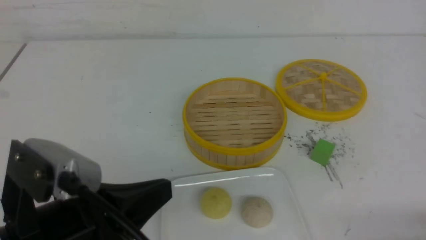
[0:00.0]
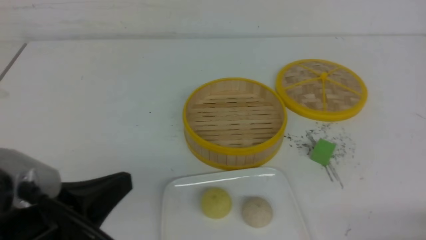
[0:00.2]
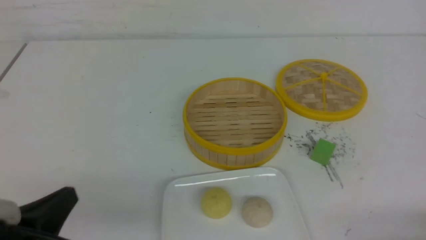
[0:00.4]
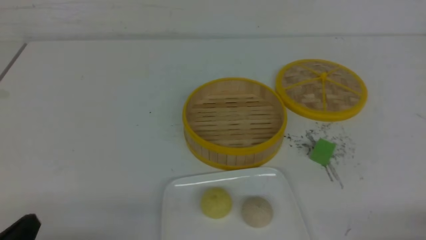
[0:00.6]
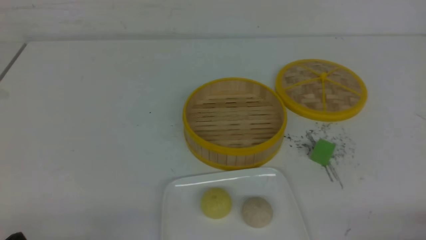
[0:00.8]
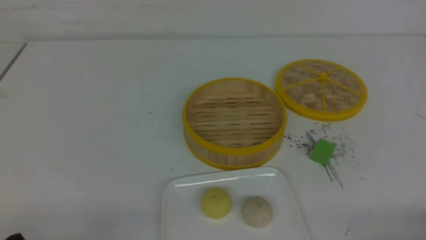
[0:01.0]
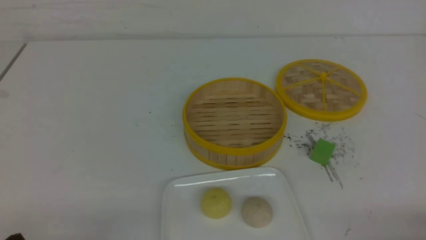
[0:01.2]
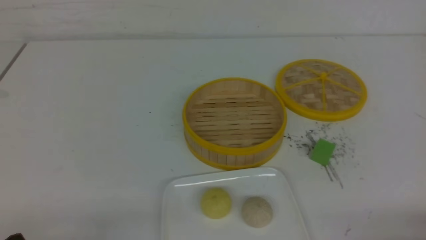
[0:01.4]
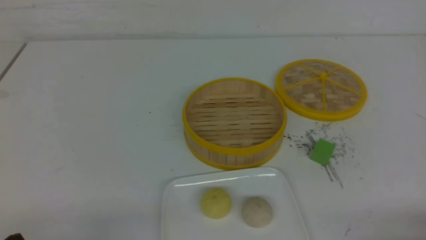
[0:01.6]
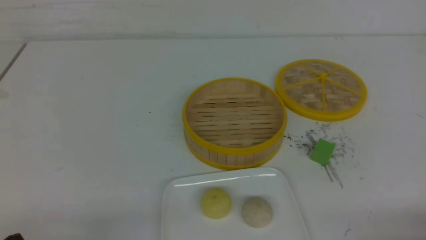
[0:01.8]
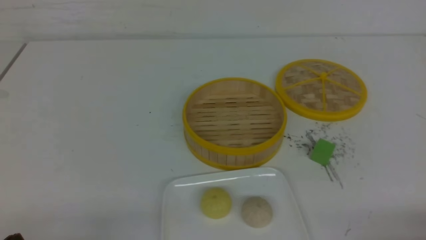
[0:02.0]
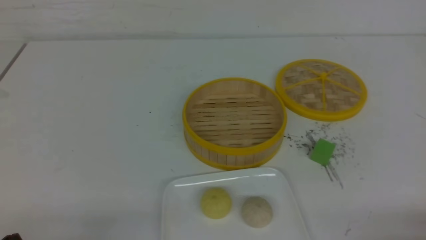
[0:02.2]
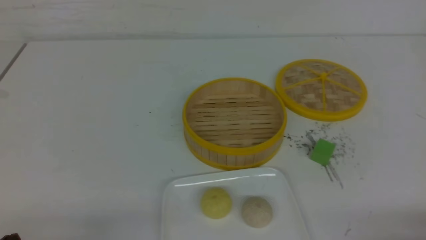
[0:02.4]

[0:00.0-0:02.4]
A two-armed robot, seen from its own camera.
0:00.0 to 0:01.2: The left gripper travels downward and to the left by some 15 cm.
0:01.2 to 0:02.4: Neither gripper changes place.

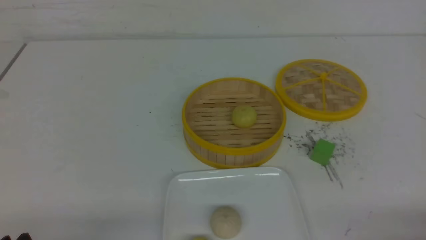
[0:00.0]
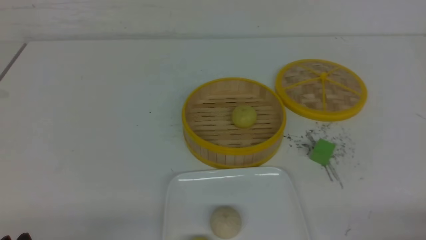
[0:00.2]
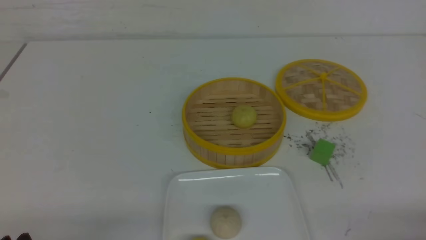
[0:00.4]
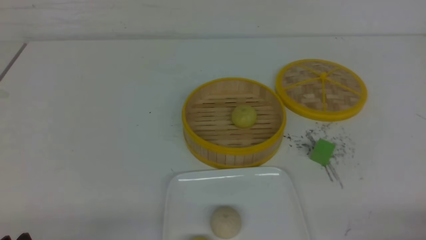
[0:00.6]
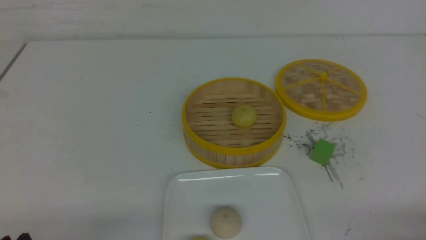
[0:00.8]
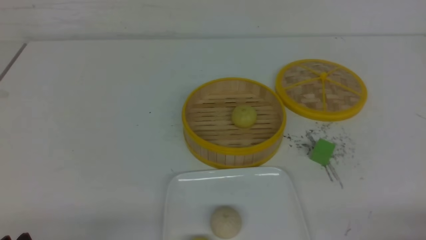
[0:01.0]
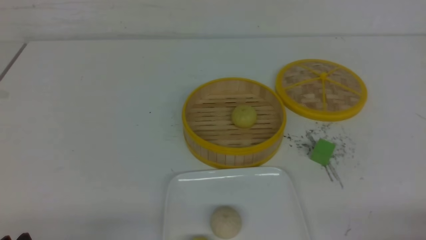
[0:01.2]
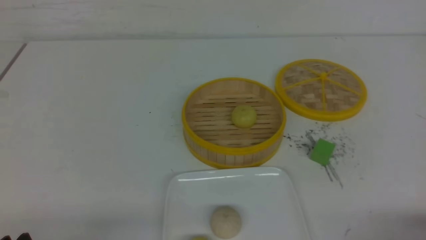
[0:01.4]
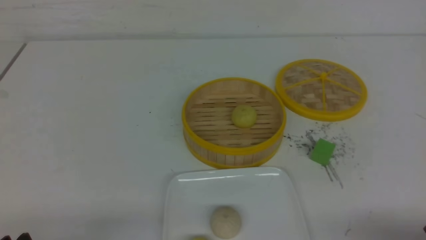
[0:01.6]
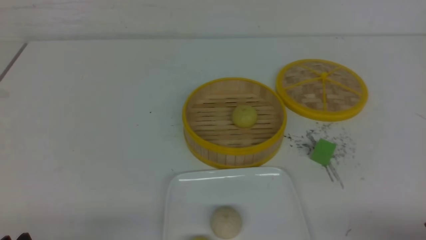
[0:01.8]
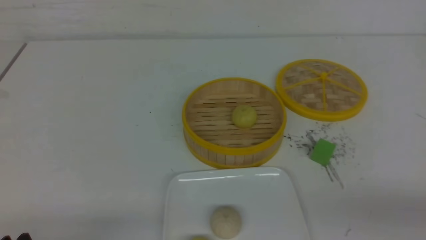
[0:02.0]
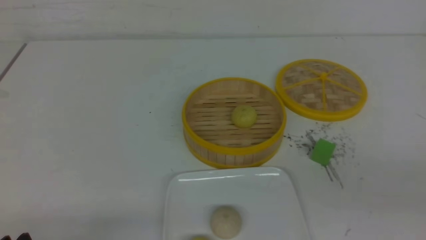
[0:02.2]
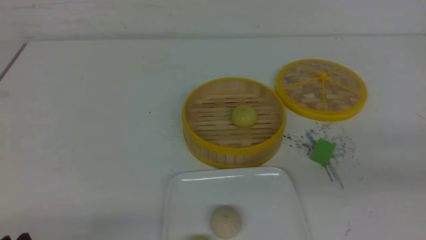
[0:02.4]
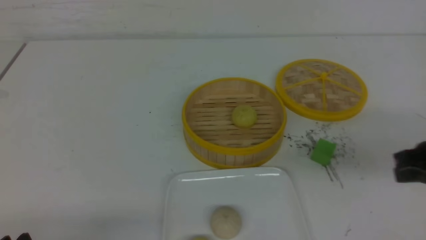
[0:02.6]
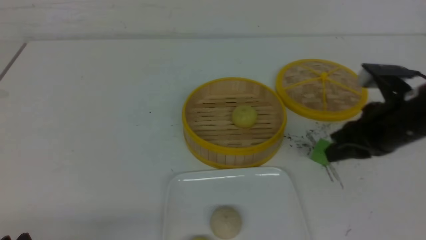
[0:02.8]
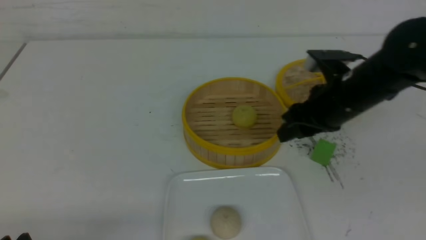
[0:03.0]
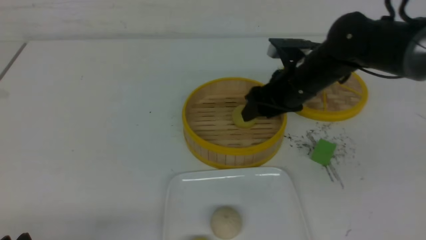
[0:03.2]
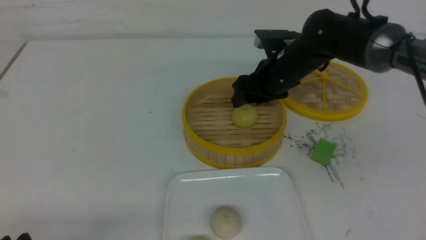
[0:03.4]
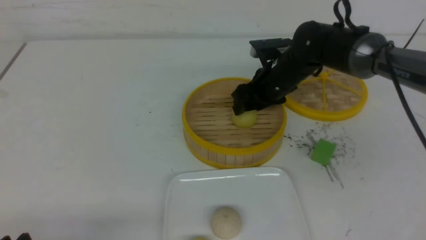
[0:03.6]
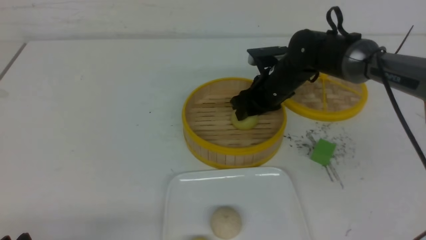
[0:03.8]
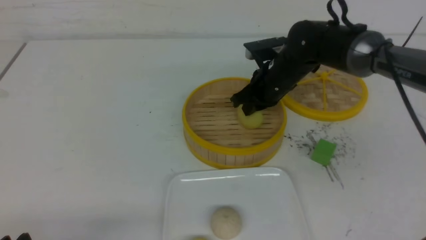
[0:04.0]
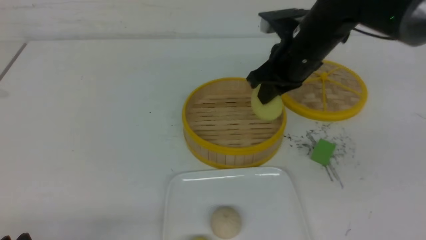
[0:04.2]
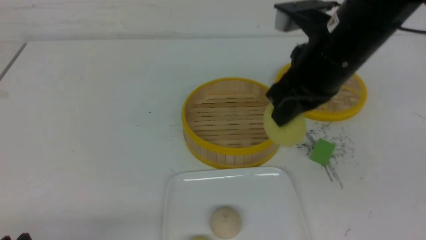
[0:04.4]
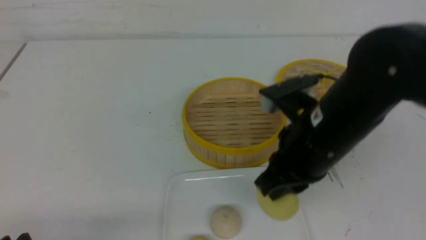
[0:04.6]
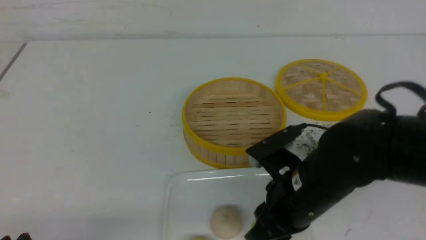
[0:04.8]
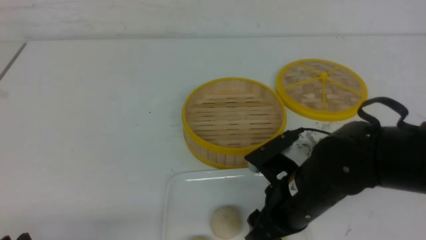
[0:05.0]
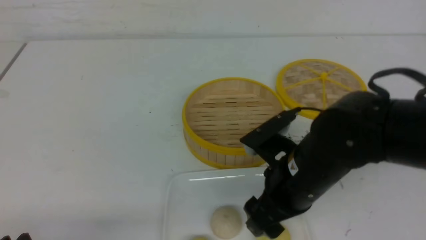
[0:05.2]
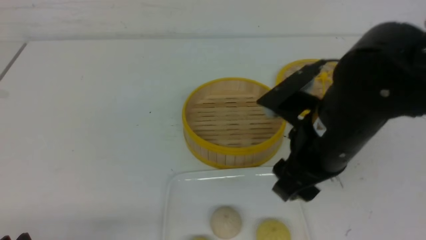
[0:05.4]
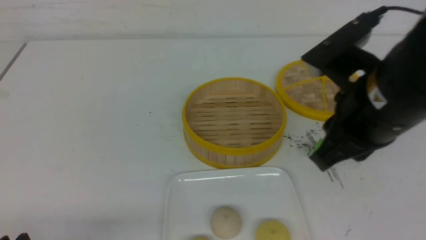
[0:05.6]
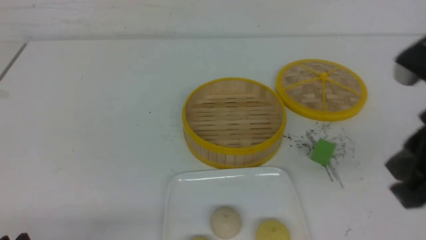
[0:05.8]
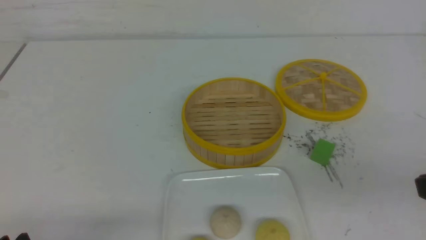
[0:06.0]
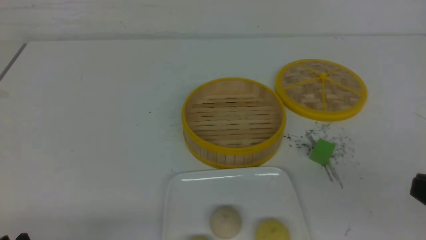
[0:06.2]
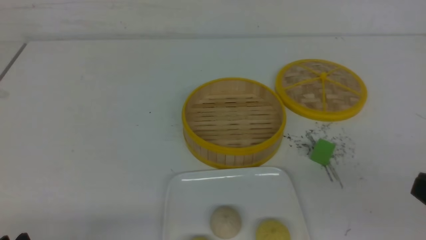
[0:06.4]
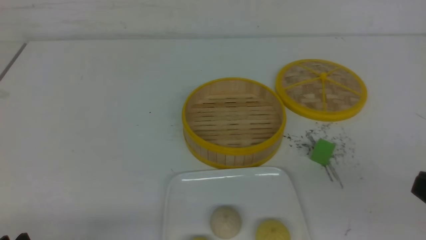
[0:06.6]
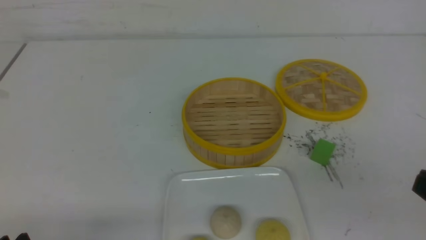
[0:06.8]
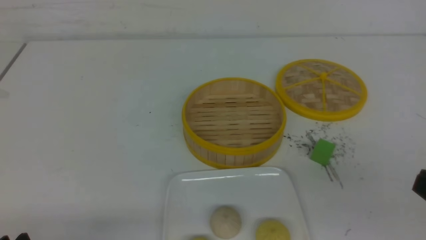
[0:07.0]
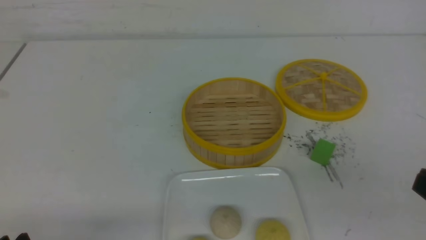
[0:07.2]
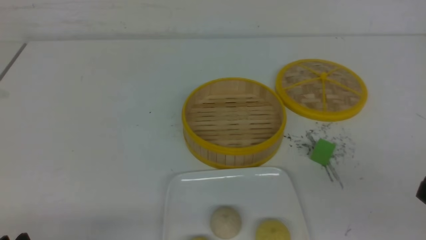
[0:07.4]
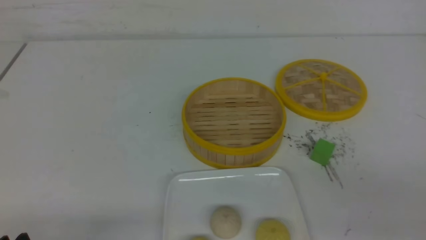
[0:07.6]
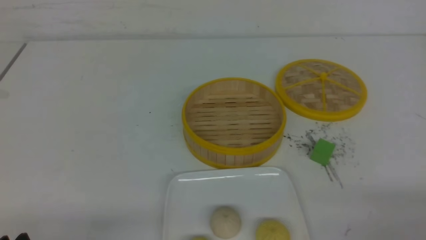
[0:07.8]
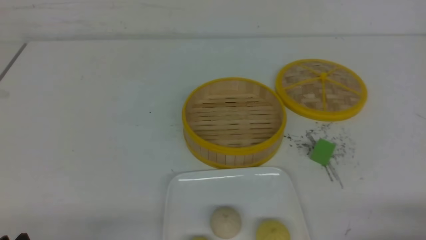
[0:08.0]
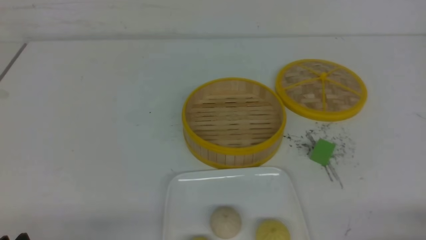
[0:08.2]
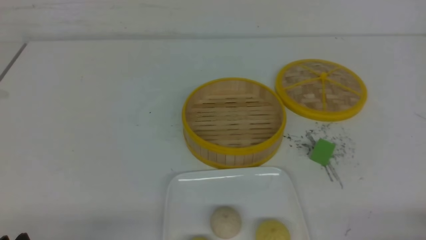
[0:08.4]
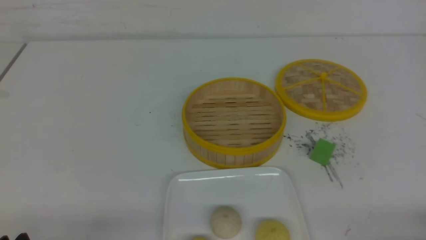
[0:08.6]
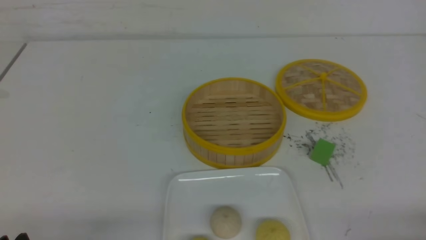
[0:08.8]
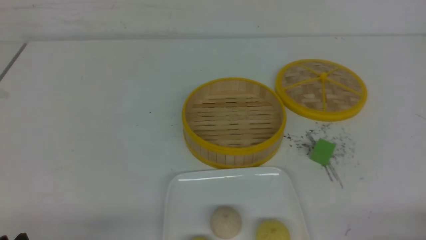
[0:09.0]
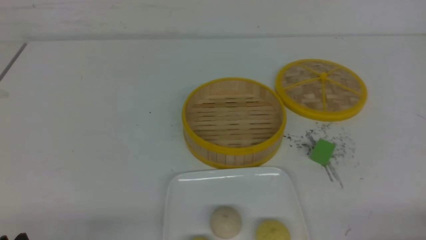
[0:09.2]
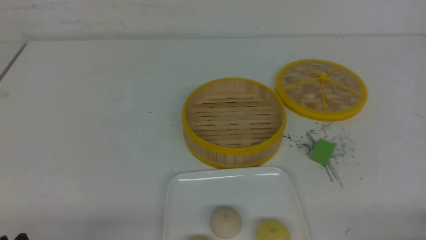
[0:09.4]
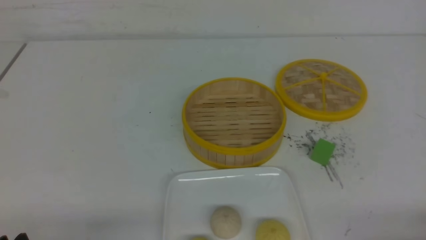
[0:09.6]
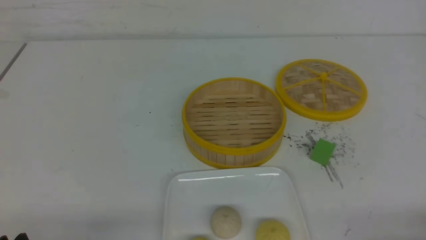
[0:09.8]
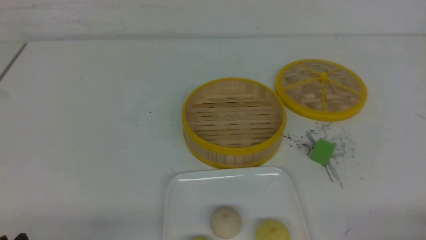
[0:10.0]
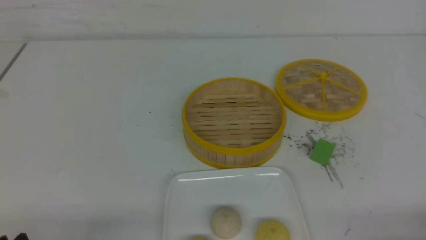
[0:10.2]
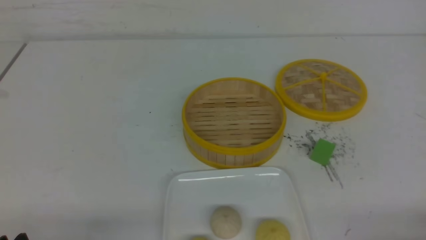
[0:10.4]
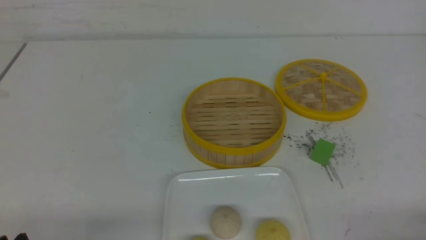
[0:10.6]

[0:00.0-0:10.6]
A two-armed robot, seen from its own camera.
Step, 0:00.0 to 0:03.8: use the right arm to grab the steamed stuffed bun that is closest to it.
Step, 0:04.0 to 0:05.2: use the right arm to put the steamed stuffed bun into the plate.
0:01.6 to 0:03.0: The right gripper goes approximately 30 cm forward and to the left, and closes, then opens again.
0:03.0 to 0:04.6: The right gripper shifts about 10 cm backward and to the left, and closes its fingers.
0:04.6 to 0:06.0: The right gripper travels backward, to the right and upward by some 20 cm, and opens, then closes again.
0:06.0 to 0:07.6: The right gripper shifts about 10 cm downward.
0:07.6 to 0:09.0: The right gripper heads downward, covering approximately 5 cm.
0:09.0 to 0:10.6: Both grippers stay about where they are.
